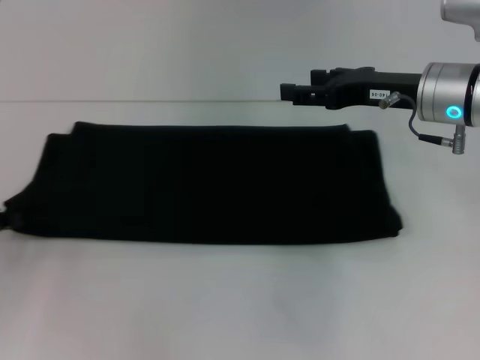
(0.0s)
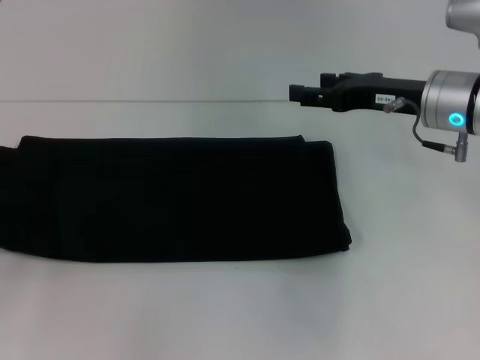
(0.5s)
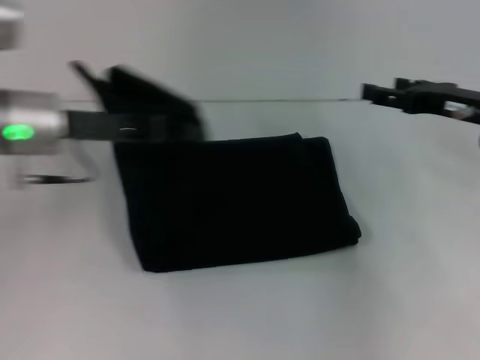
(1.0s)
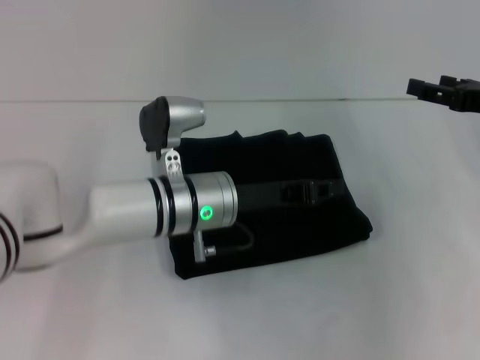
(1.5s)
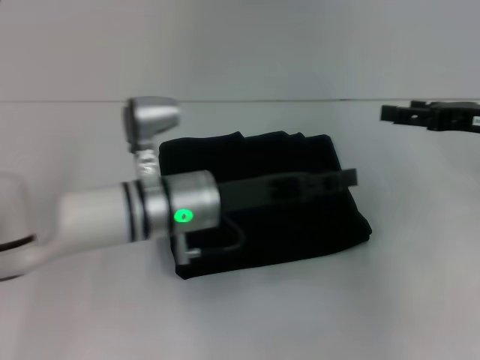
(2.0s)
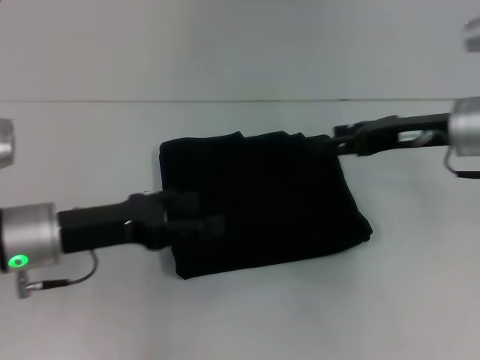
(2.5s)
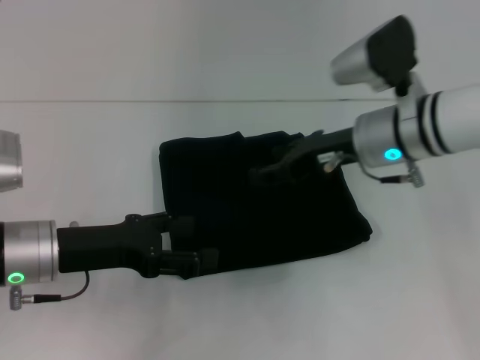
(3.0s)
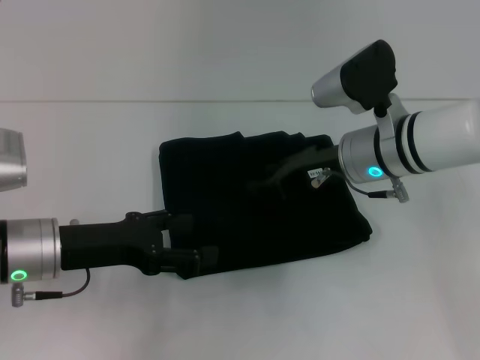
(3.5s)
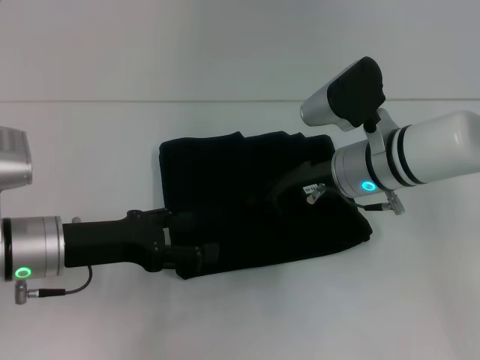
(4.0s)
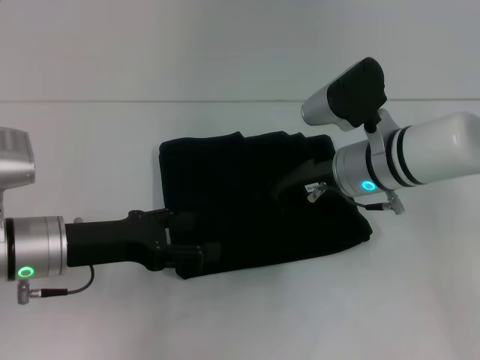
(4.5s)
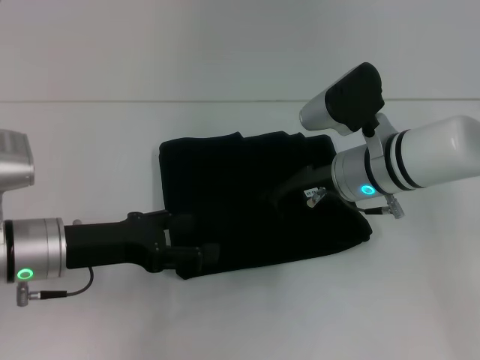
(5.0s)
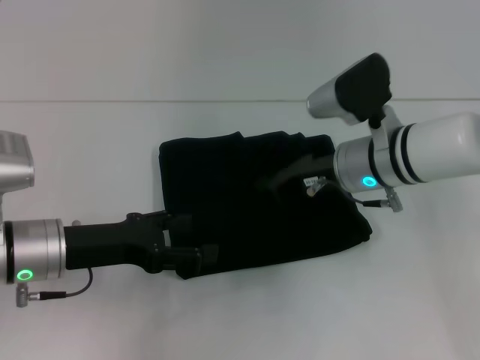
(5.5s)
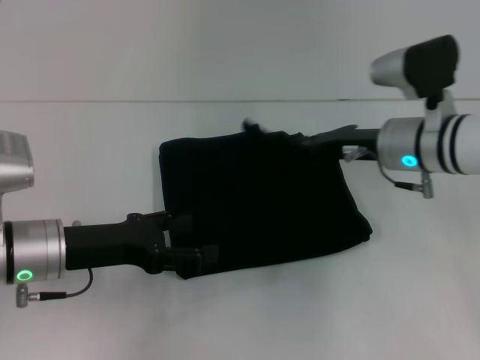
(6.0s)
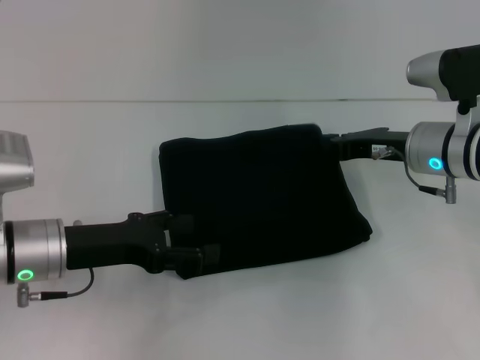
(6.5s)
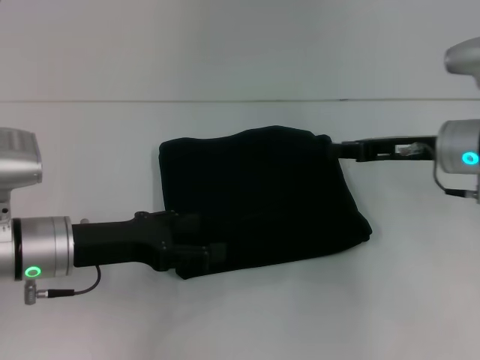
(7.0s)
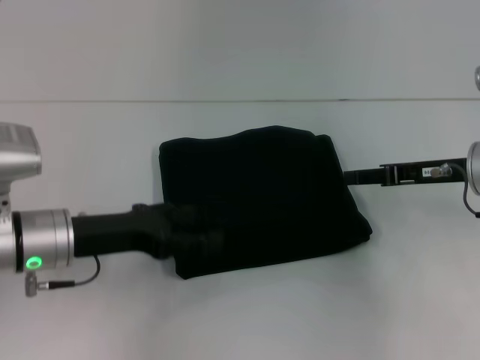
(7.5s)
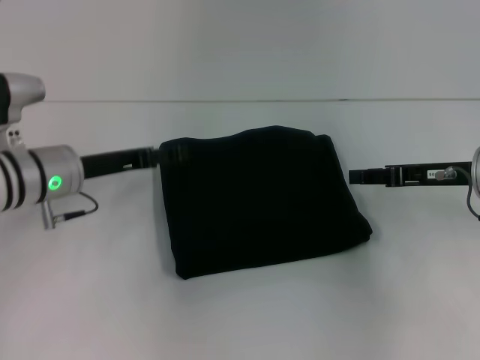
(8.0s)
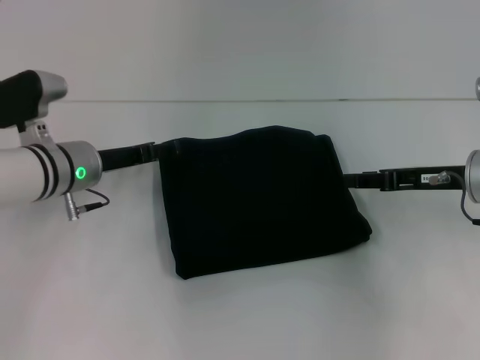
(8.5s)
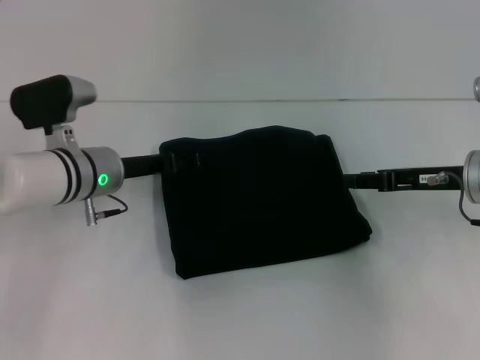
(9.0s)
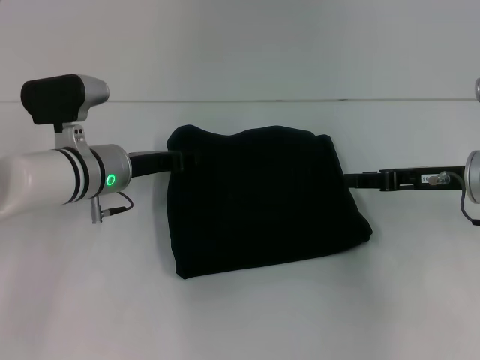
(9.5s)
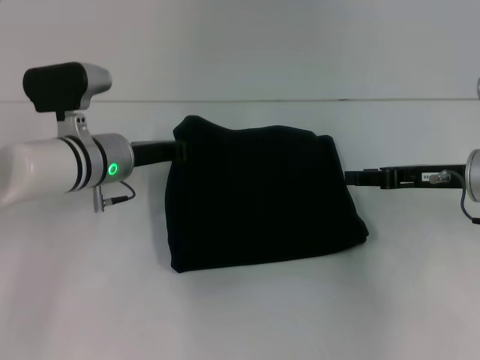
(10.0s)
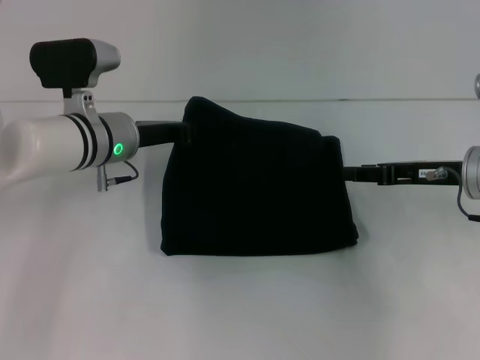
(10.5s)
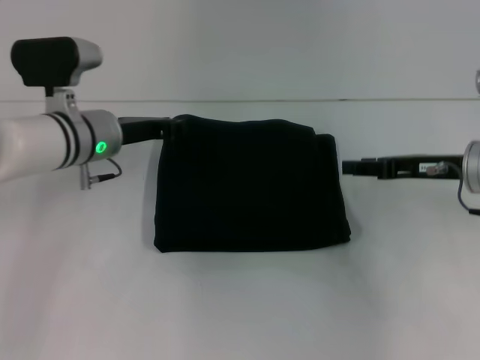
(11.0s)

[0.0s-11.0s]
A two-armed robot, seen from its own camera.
0.0s to 2.0s: The left gripper shifts approximately 30 cm to the right. The right gripper heads to the right, covering about 10 cm.
2.0s to 3.5s: The two grippers go some 15 cm to the left. The right gripper closes its fingers; the left gripper opens its fingers.
3.5s to 5.5s: The right gripper closes up.
5.5s to 7.5s: The right gripper goes roughly 15 cm to the right, and opens.
7.5s to 9.0s: The left gripper is displaced forward by about 10 cm.
9.0s to 11.0s: The left gripper closes its fingers.

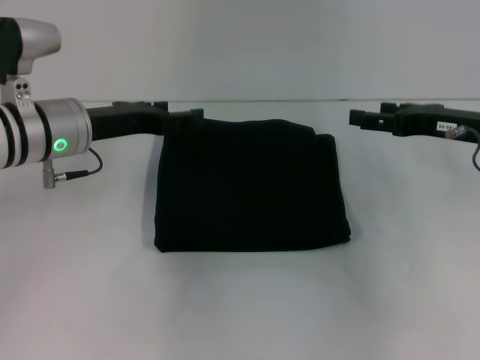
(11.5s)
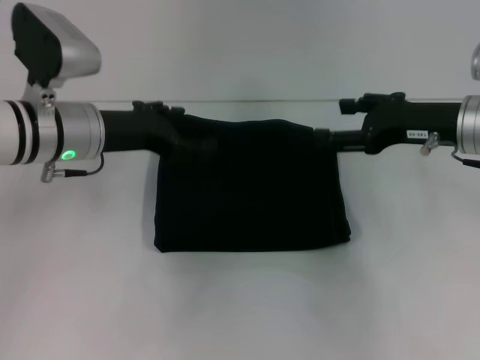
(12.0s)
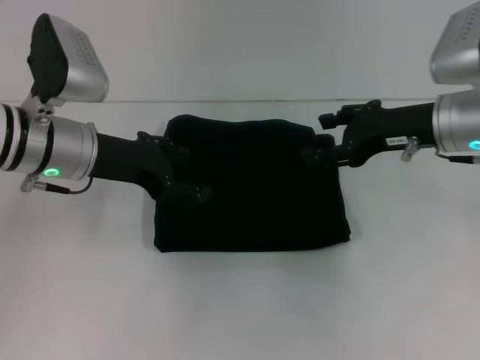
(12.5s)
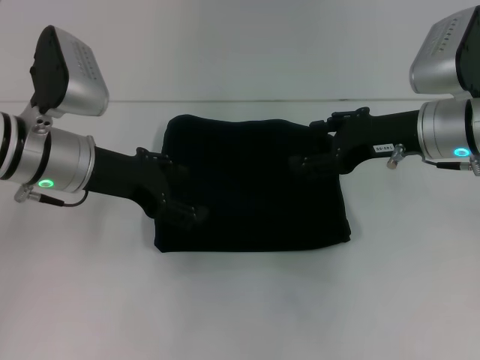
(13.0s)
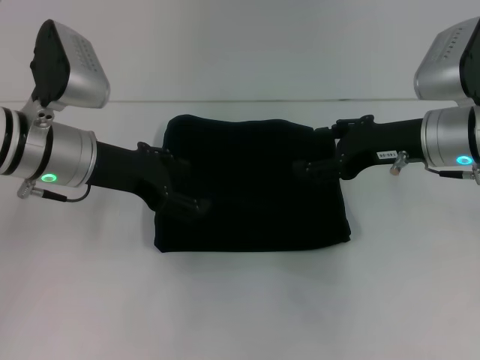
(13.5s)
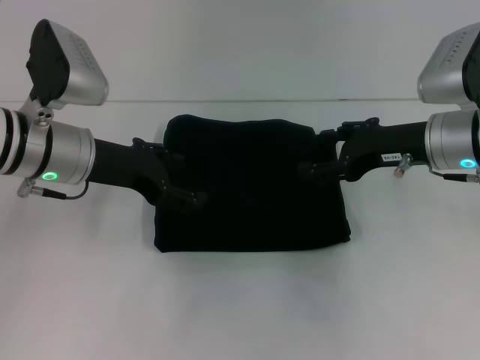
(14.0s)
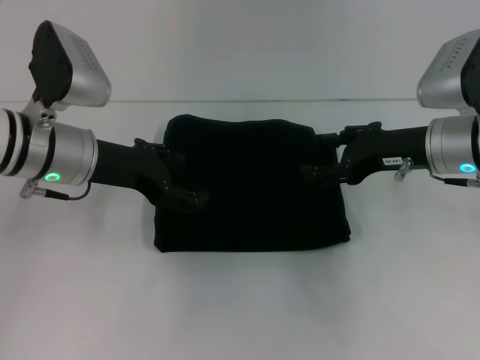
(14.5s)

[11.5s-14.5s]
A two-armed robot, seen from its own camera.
11.5s to 13.0s: The right gripper travels to the left by approximately 5 cm.
13.0s to 14.5s: The grippers make only small movements.
